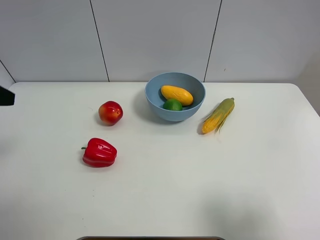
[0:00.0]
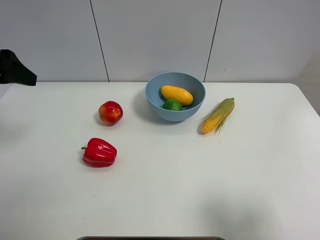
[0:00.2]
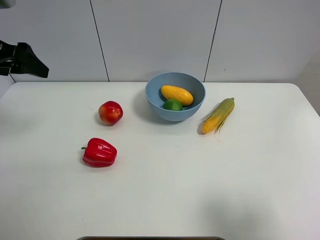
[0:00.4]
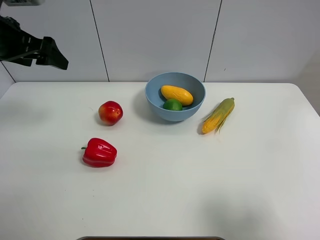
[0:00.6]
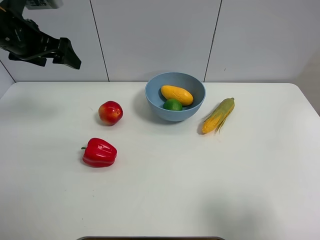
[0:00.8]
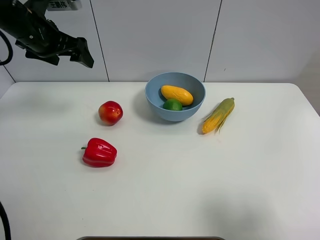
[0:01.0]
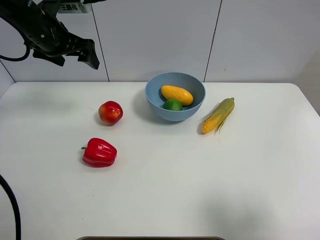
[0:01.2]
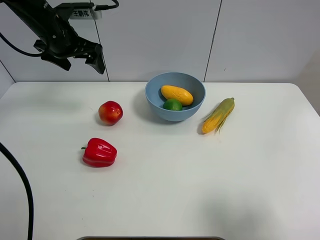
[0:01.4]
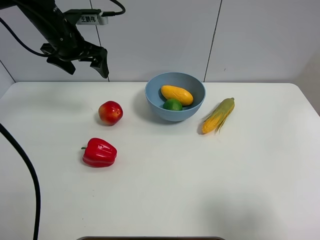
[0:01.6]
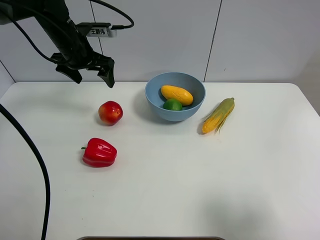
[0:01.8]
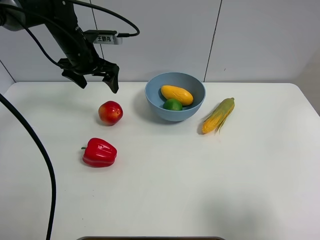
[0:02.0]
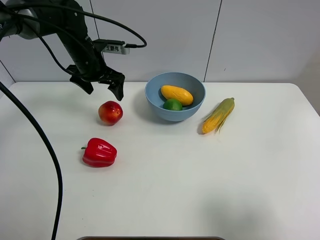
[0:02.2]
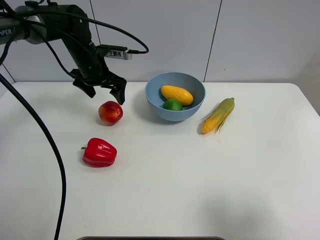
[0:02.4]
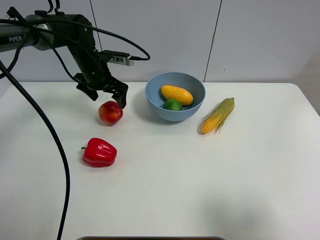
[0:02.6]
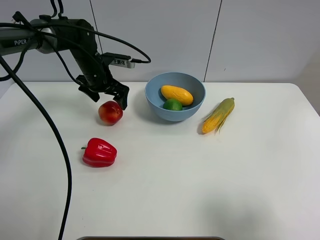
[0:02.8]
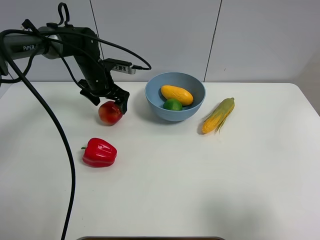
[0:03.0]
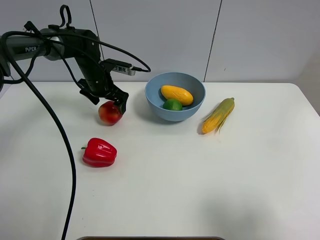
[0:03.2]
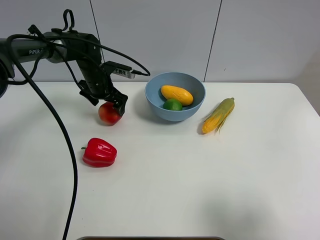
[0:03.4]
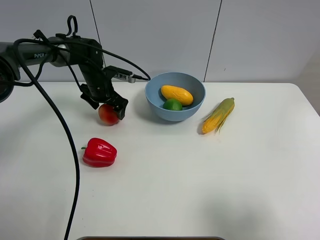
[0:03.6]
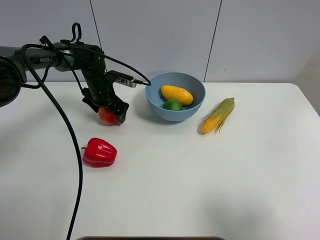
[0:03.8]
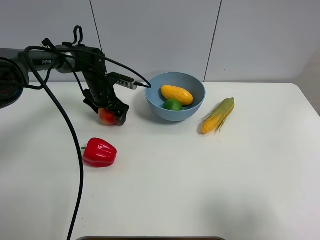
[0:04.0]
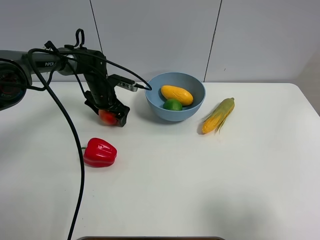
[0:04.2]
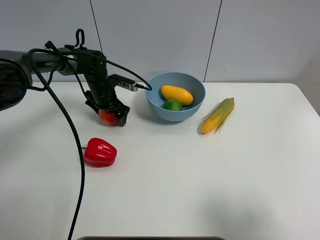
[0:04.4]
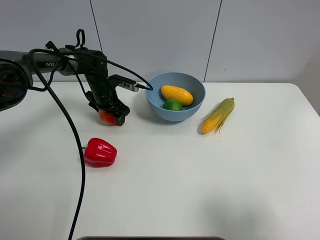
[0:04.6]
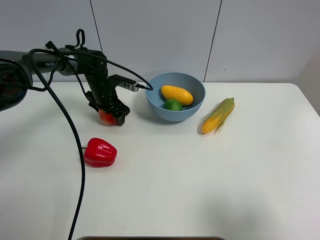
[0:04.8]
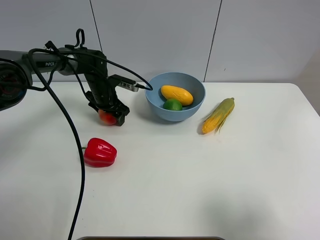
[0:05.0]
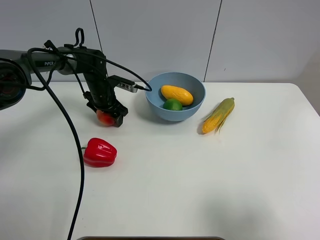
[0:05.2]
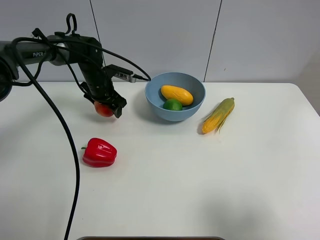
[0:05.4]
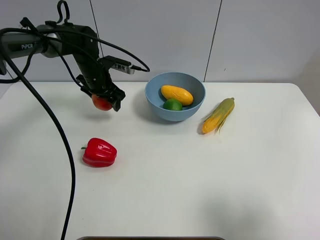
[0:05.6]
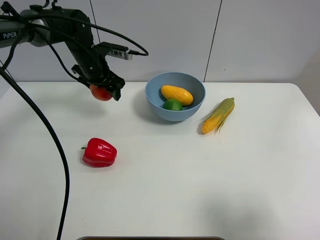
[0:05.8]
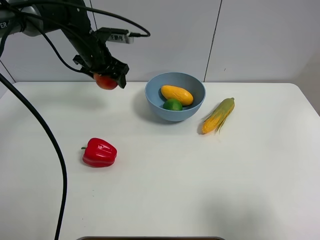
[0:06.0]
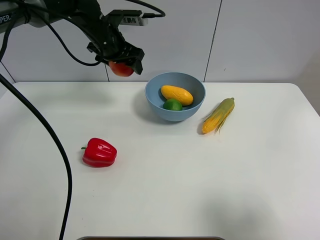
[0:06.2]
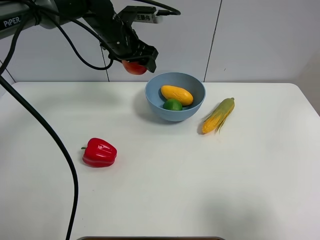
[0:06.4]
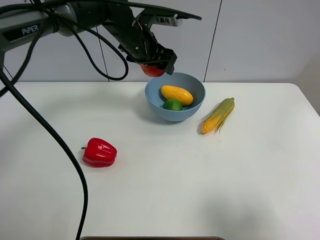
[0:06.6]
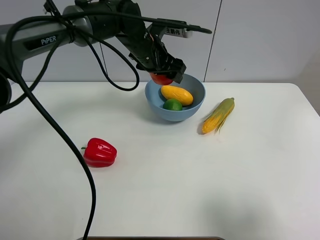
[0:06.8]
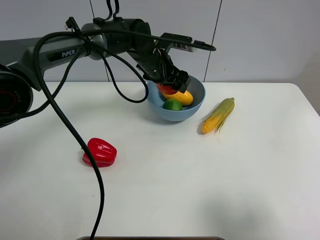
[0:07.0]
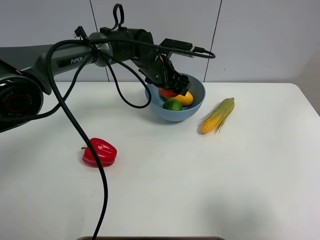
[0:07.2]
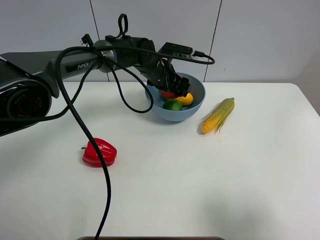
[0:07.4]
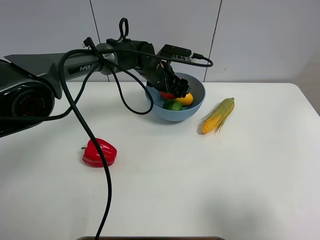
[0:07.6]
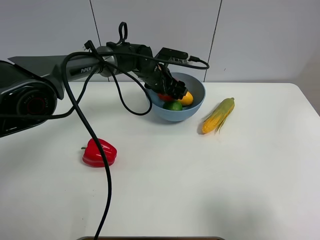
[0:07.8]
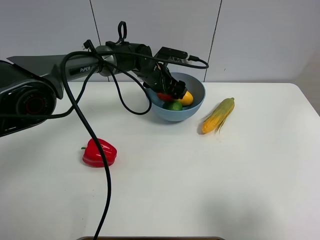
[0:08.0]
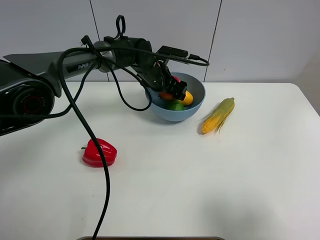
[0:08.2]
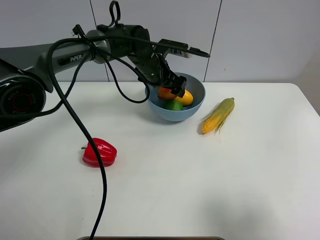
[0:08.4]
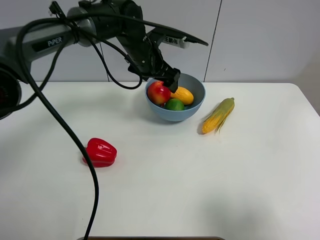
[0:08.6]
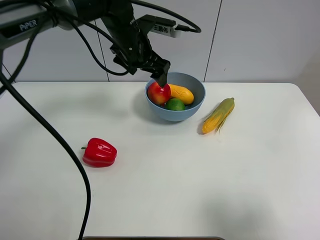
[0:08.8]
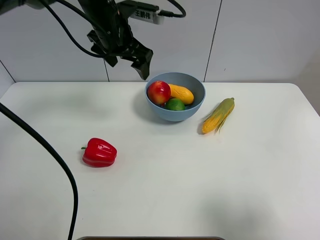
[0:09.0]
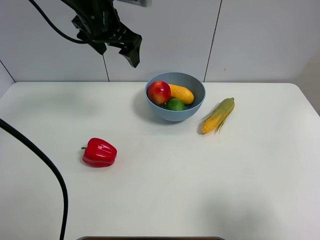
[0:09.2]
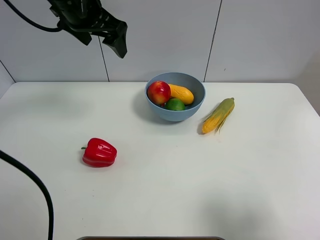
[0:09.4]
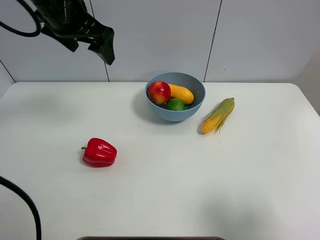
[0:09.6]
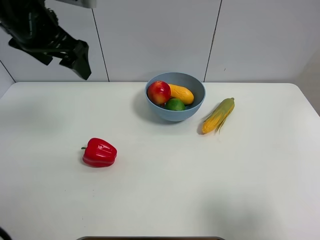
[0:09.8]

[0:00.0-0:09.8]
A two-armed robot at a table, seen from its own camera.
Task of the whole recording: Put the three fruits on the table into a bowl.
Step, 0:00.0 to 0:04.6: Grasp the pomegranate with left gripper.
Step, 0:04.8 to 0:08.4: Place the pomegranate in the blue bowl with left gripper.
0:00.0 to 0:01.4: The left gripper is displaced forward and to the right by approximately 25 cm.
0:01.4 to 0:02.8: The left gripper heads downward, covering roughly 10 cm.
0:02.8 to 0:04.2: The left gripper shifts roughly 10 cm downward.
0:04.2 to 0:05.6: The left gripper travels upward by approximately 5 cm, and closes up.
0:05.6 to 0:07.0: The left gripper shifts some 15 cm to the right.
0:07.0 to 0:08.4: The left gripper opens its fingers.
0:08.4 to 0:09.8: The left gripper travels to the left, upward and backward by some 30 cm.

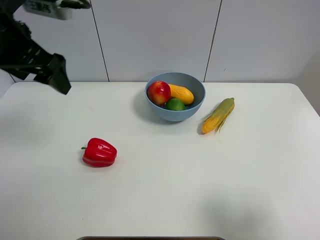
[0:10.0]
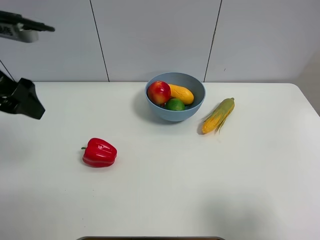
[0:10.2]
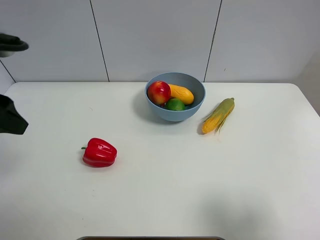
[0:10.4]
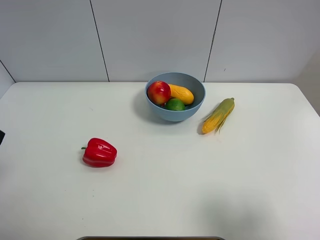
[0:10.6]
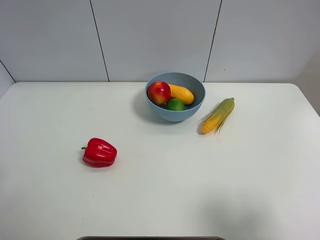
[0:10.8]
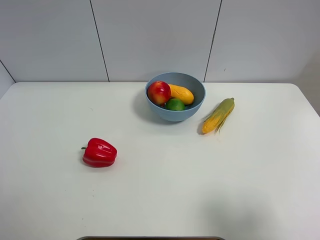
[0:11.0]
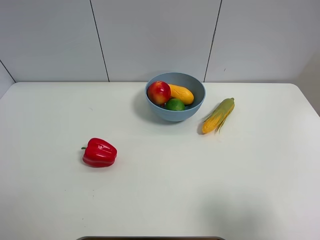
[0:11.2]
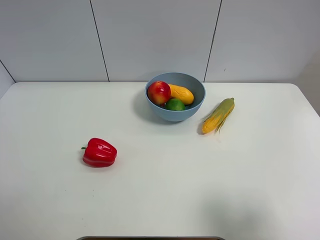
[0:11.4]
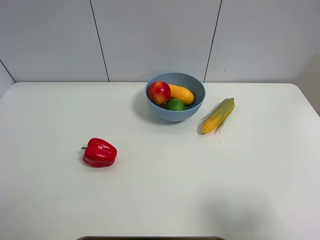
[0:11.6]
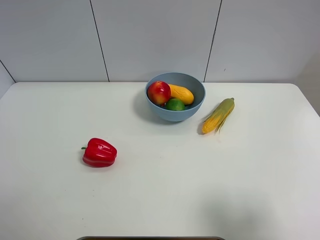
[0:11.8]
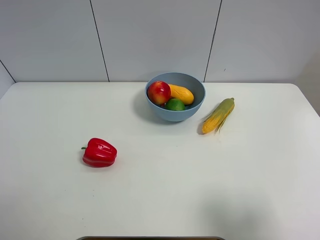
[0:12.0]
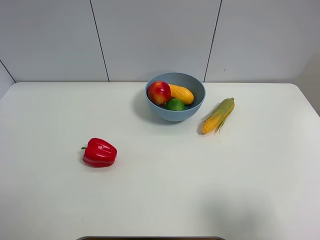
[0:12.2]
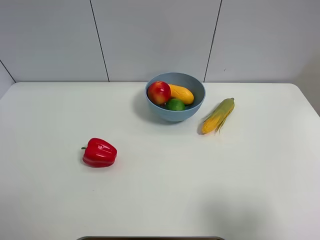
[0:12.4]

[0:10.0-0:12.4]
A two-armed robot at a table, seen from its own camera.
Task of the whole recording: Put the three fruits on the table into a bowl.
0:10.0 to 0:11.2: The left gripper shifts some 25 cm backward, to the left and downward.
